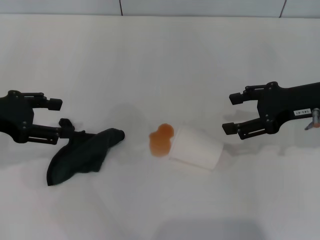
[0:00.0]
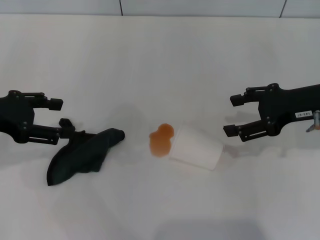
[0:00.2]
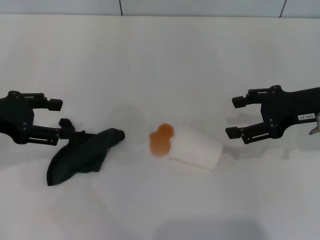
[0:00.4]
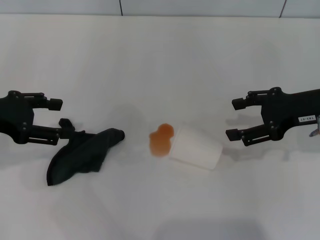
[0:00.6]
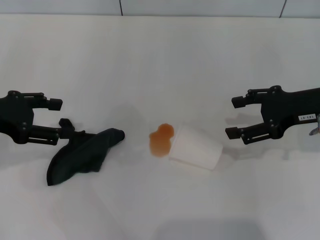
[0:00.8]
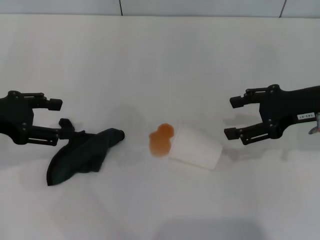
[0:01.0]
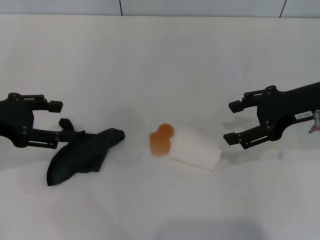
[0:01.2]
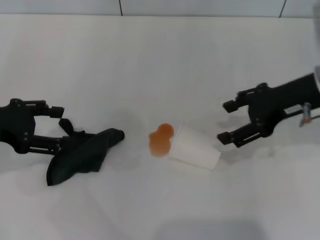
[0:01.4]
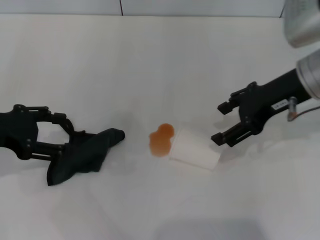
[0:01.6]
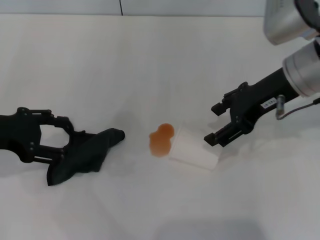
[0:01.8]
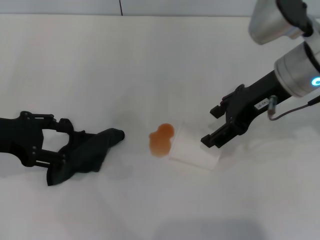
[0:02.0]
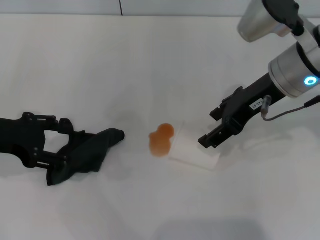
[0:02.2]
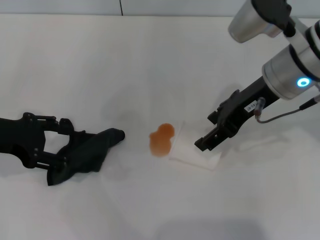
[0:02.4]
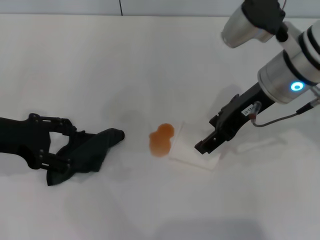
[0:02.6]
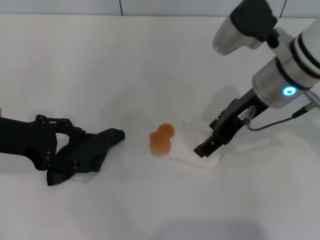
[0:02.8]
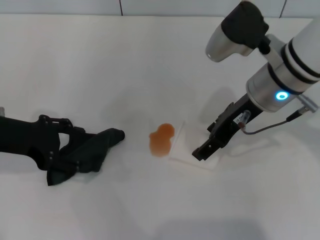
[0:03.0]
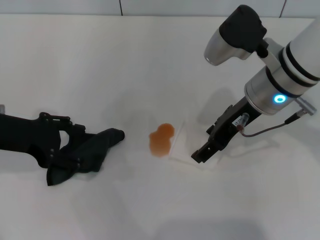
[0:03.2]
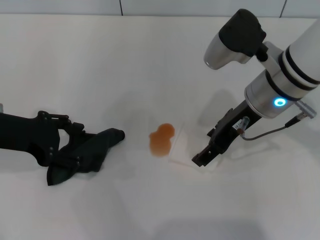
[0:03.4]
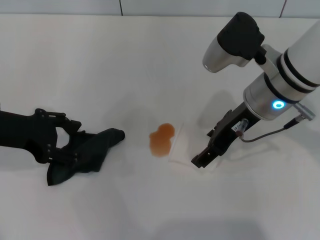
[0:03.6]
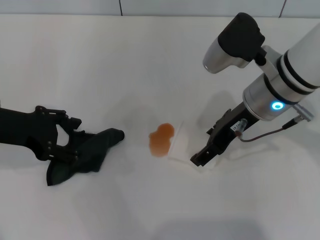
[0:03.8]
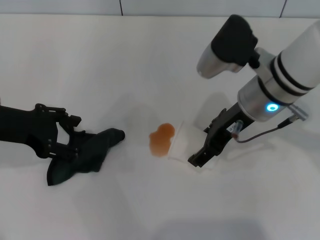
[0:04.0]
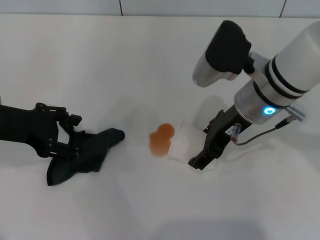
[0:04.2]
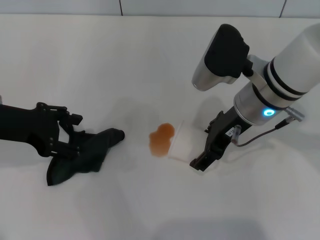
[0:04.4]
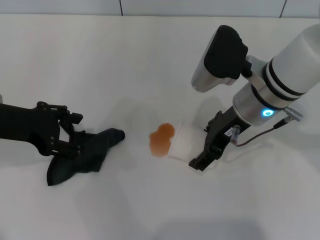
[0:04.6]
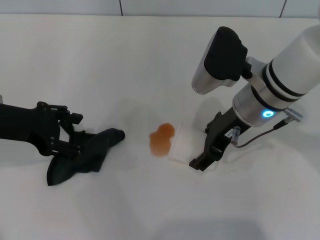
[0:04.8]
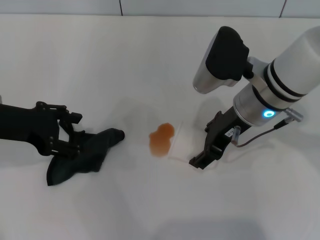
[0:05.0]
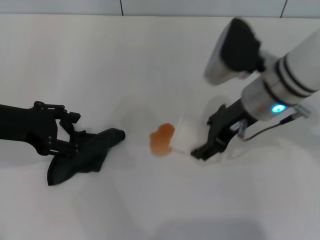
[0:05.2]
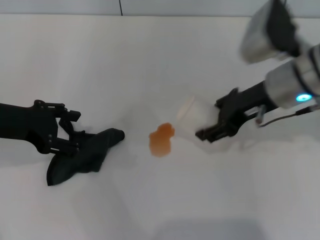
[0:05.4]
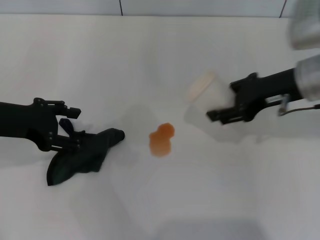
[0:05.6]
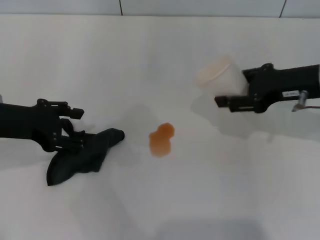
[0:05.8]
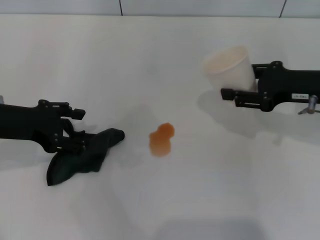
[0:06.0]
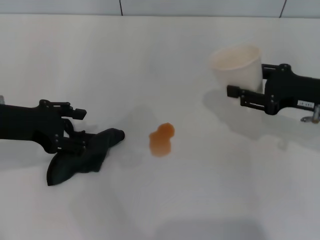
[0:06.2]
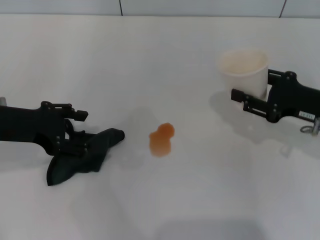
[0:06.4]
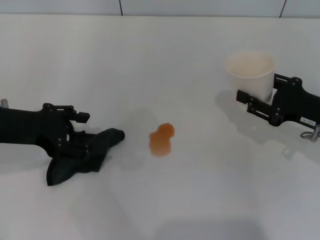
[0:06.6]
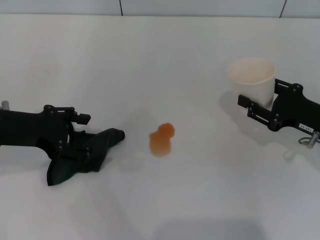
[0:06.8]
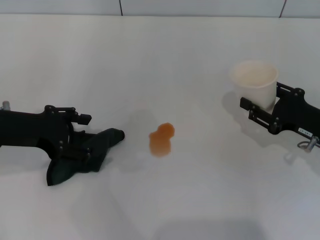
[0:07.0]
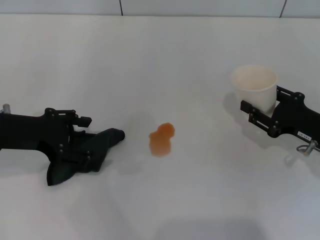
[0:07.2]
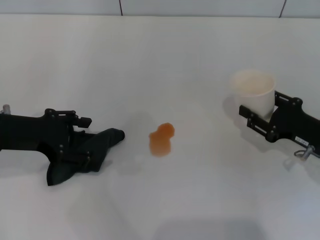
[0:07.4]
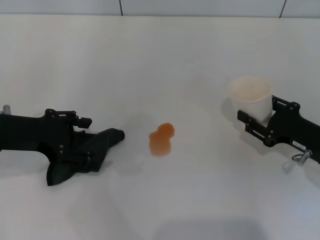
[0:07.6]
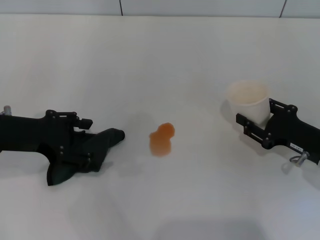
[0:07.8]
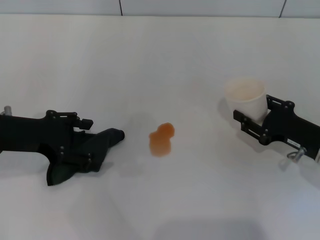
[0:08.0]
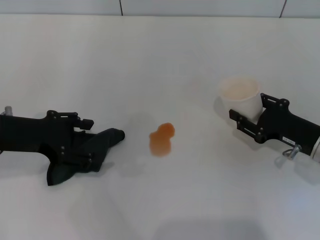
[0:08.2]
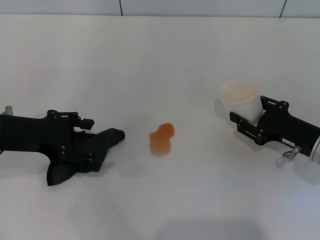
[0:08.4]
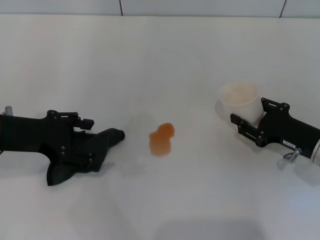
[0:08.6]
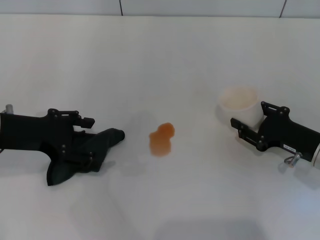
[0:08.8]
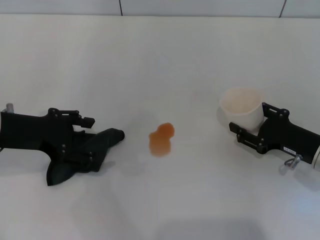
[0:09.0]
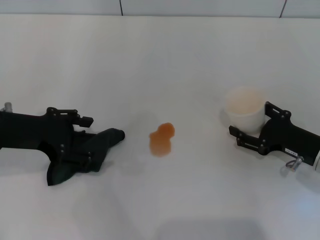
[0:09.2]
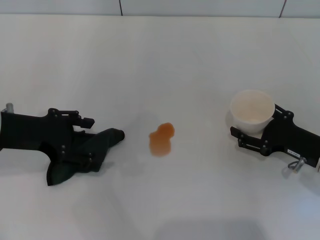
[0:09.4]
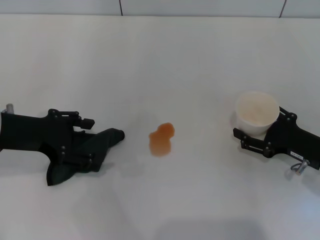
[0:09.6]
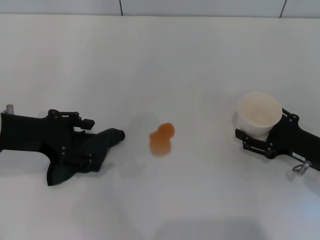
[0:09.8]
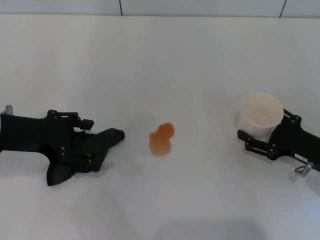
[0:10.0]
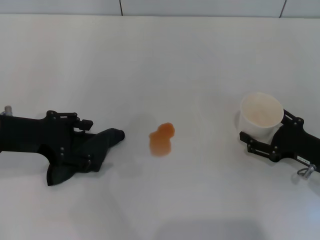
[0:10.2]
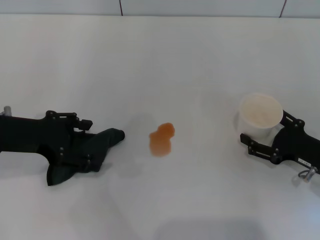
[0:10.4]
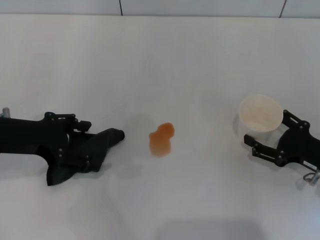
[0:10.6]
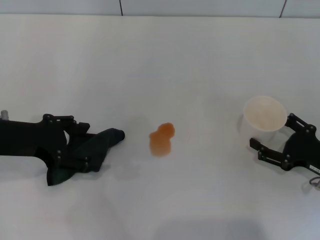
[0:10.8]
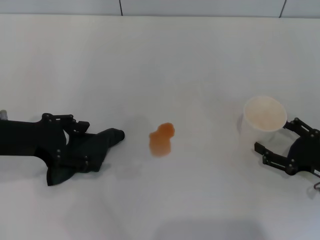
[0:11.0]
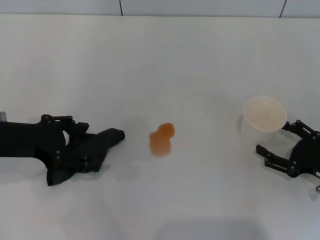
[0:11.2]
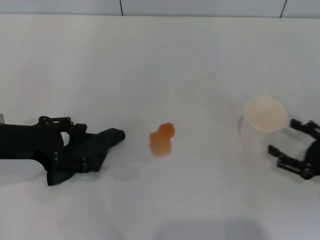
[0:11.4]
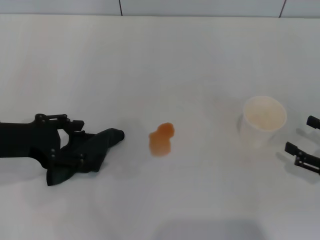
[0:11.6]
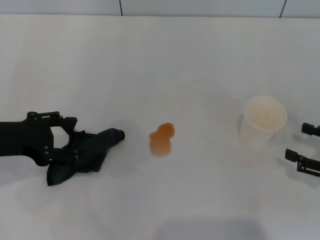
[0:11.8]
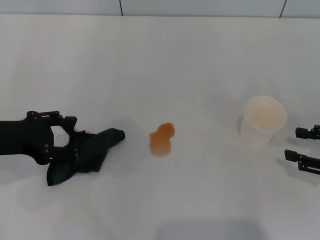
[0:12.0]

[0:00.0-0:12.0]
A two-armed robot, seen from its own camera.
Step, 0:00.0 to 0:04.8: Grasp the paper cup with the right gripper.
Step, 0:05.0 to 0:11.8: Stand the paper cup upright with the right gripper.
0:00.0 to 0:01.6: The right gripper shifts roughly 5 cm to the left.
0:01.6 to 0:03.0: The right gripper heads to the left, covering some 5 cm.
0:03.0 to 0:04.4: The grippers make only small movements.
0:04.4 to 0:06.0: The right gripper heads to the right, covering about 15 cm, and closes up.
0:06.0 to 0:07.6: The right gripper shifts some 15 cm downward and backward.
0:07.6 to 0:09.0: There are only small adjustments of the grippers.
0:09.0 to 0:10.4: The right gripper opens its fingers.
0:10.4 to 0:12.0: The right gripper is displaced to the right and upward by roughly 10 cm.

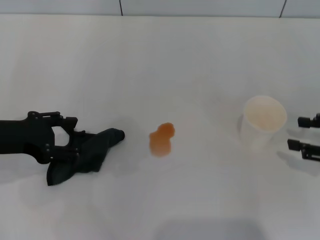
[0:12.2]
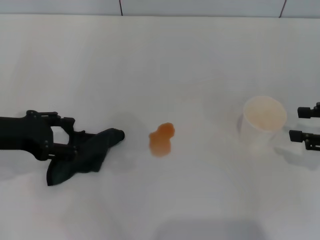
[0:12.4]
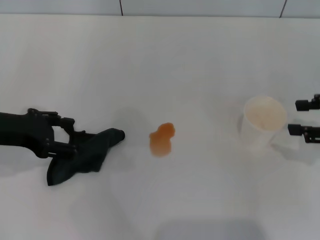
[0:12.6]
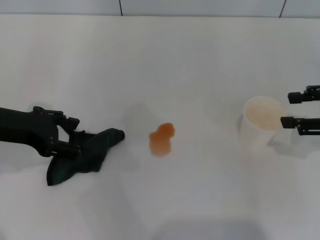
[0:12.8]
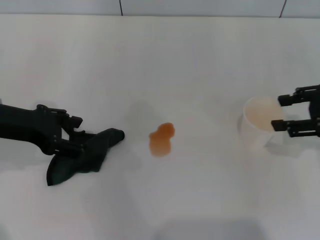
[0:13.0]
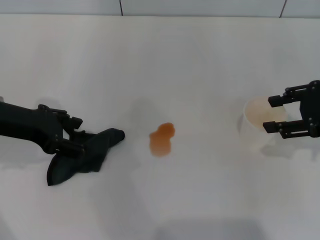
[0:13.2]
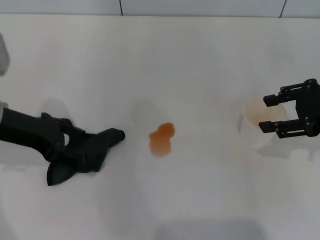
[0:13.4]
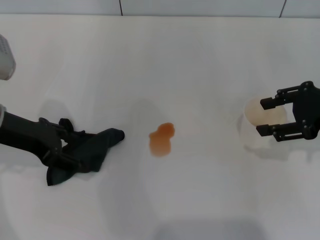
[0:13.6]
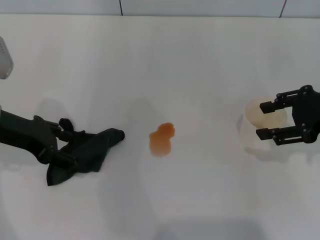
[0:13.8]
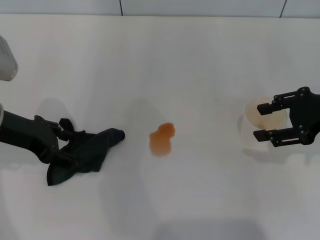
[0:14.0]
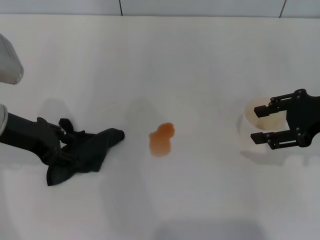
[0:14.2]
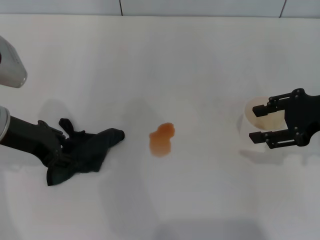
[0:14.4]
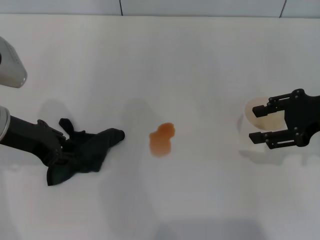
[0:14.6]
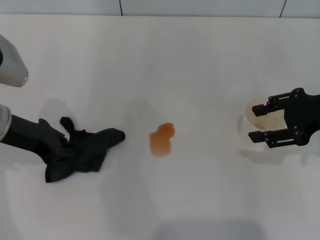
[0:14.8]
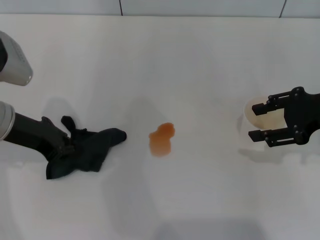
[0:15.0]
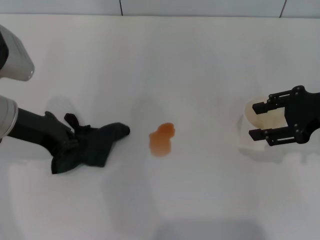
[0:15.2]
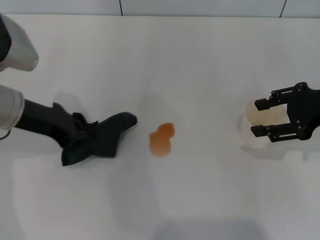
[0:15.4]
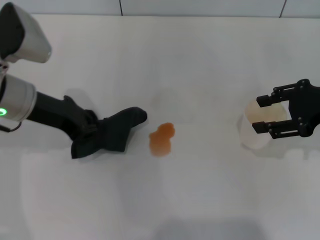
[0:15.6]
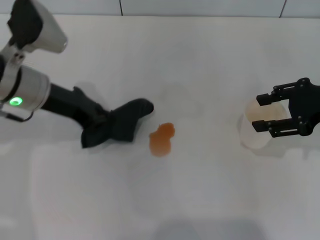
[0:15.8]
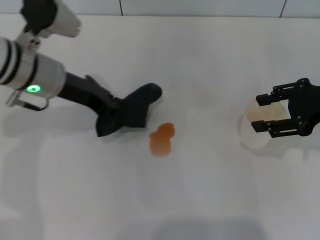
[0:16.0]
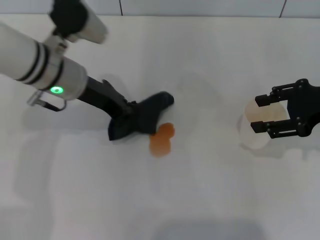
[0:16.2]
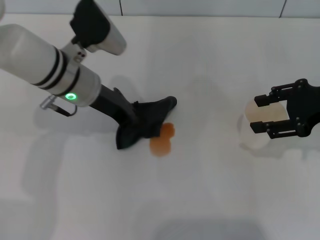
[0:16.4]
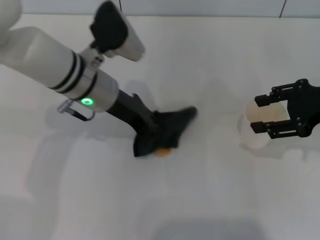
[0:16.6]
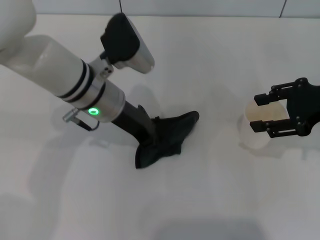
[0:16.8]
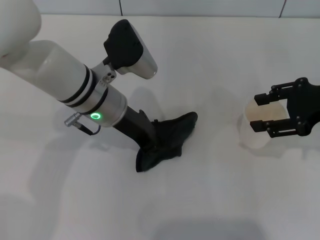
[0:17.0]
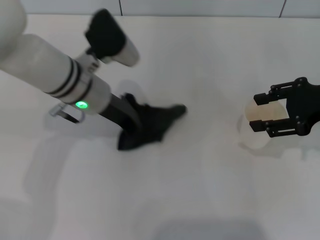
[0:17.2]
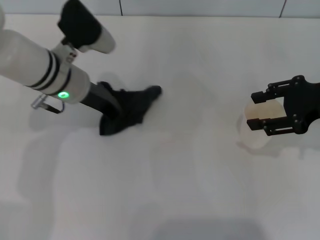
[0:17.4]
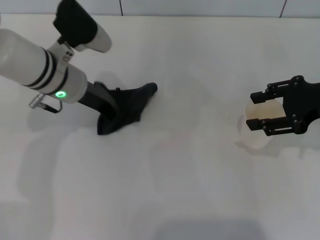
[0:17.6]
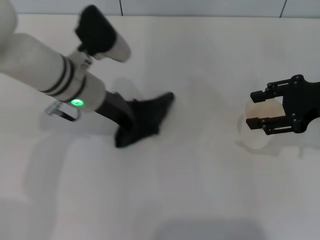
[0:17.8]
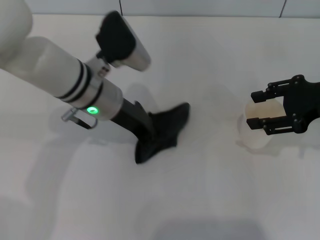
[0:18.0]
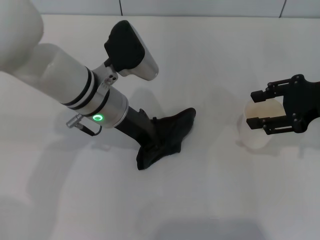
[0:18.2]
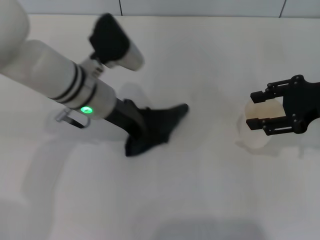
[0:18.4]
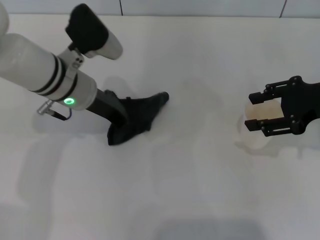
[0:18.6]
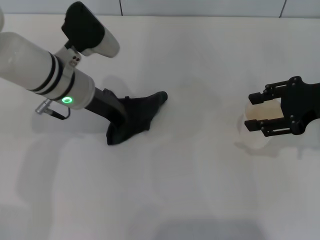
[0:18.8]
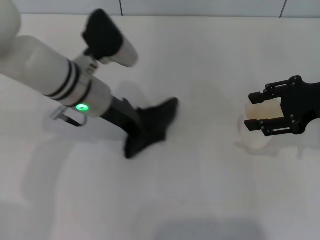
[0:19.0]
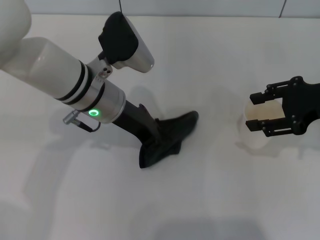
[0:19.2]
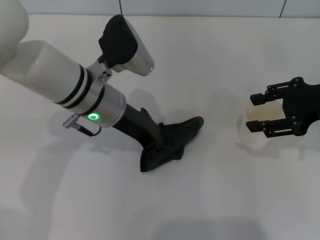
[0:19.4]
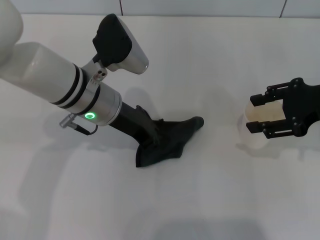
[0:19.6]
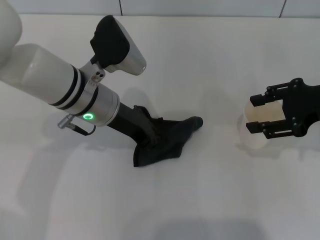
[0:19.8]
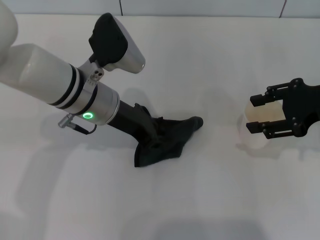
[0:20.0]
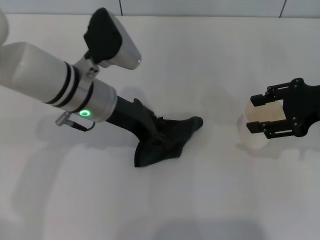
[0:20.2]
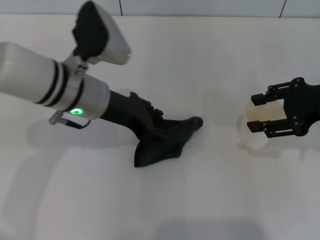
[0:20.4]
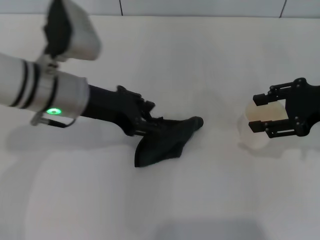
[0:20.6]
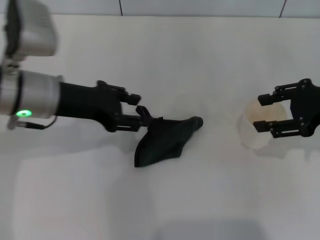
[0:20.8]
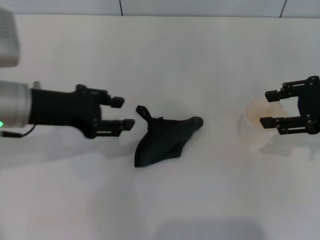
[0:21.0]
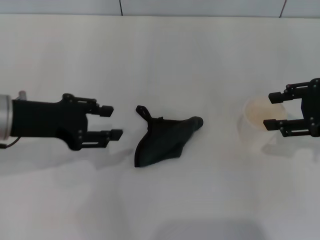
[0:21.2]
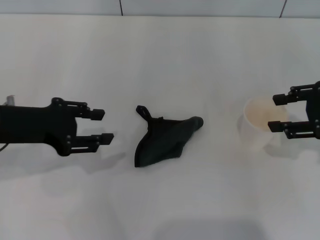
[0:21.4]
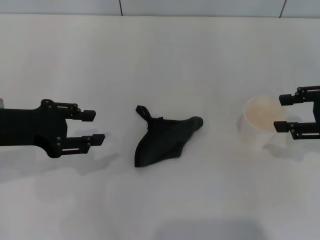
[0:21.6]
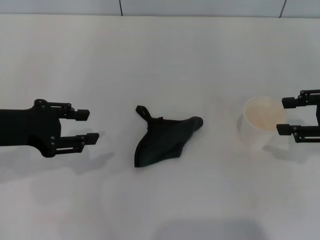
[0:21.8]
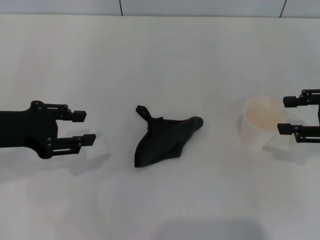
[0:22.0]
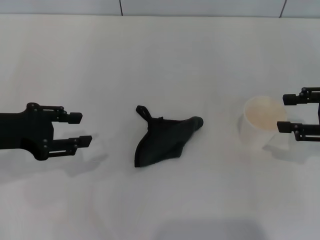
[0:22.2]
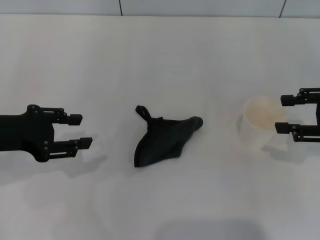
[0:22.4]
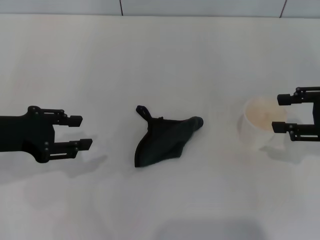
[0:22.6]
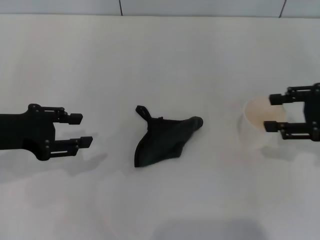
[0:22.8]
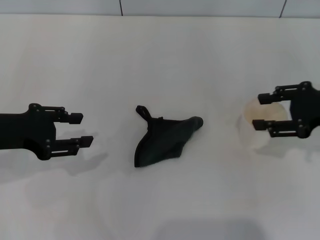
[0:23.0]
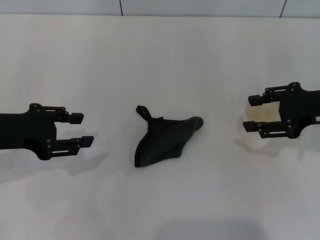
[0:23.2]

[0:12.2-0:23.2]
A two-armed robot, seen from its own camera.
Step, 0:12.2 to 0:15.2: Grasp the rag with the left gripper.
Step, 0:15.4 to 0:19.4: Wipe the stains off the table with the left gripper.
Step, 0:19.6 to 0:20.6: Place the rag on the table with the left gripper.
0:12.2 to 0:13.8: The right gripper shifts approximately 10 cm upward, to the left and forward.
0:13.8 to 0:15.4: The left gripper closes its fingers.
0:15.4 to 0:17.0: The left gripper moves to the right, roughly 15 cm.
0:18.4 to 0:20.0: The grippers stay close to where they were, moving slightly.
0:20.0 to 0:21.6: The left gripper heads to the left and backward, covering approximately 15 cm, and opens up. The right gripper ends up some 5 cm from where it was.
0:21.6 to 0:23.2: The grippers stay close to where they were, moving slightly.
